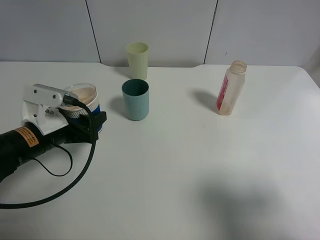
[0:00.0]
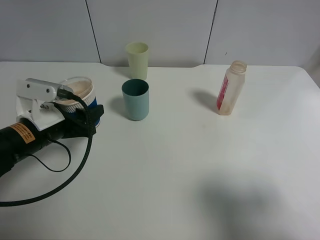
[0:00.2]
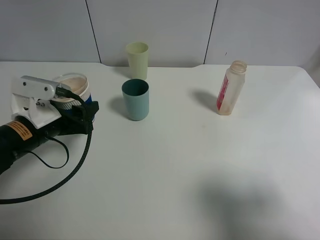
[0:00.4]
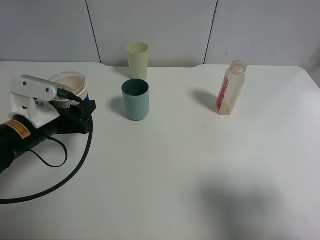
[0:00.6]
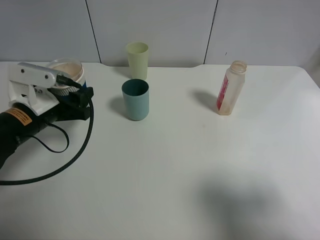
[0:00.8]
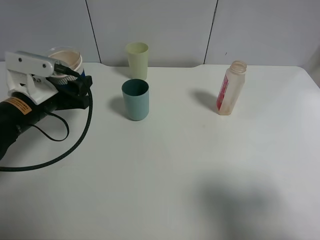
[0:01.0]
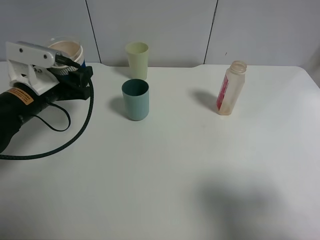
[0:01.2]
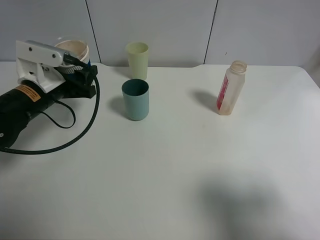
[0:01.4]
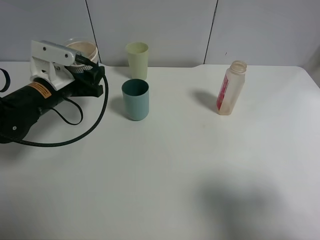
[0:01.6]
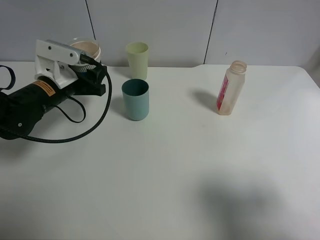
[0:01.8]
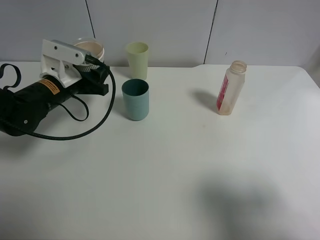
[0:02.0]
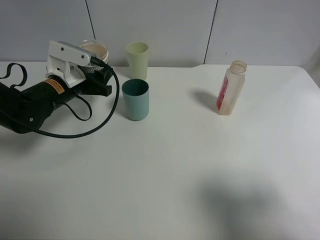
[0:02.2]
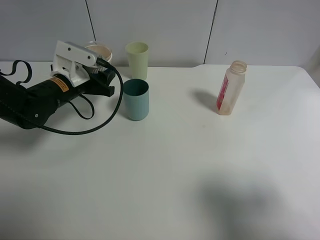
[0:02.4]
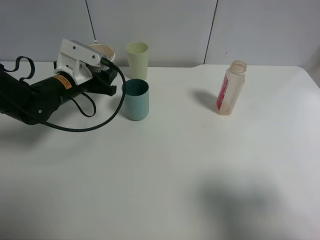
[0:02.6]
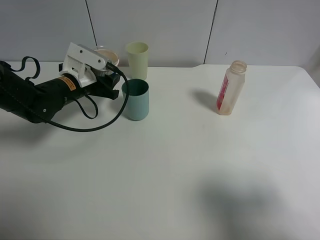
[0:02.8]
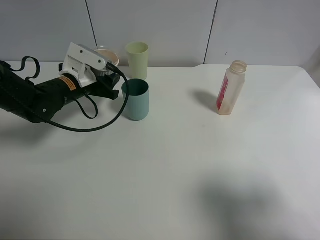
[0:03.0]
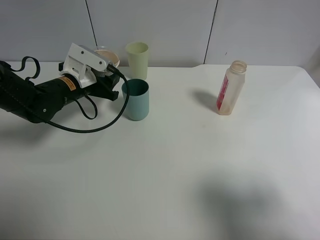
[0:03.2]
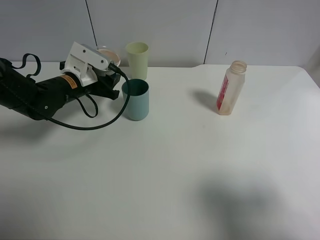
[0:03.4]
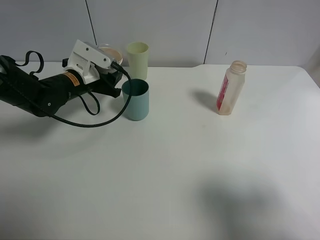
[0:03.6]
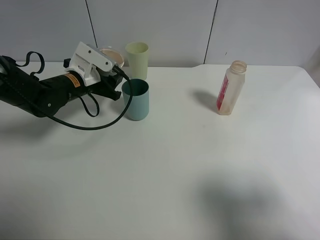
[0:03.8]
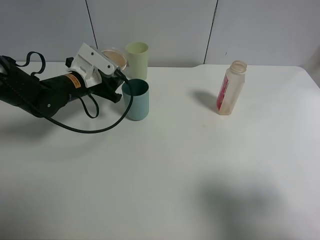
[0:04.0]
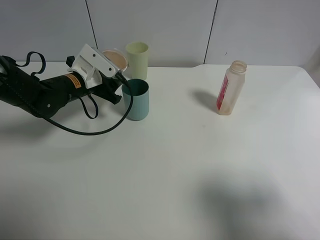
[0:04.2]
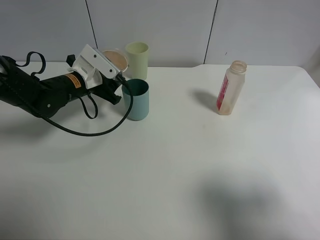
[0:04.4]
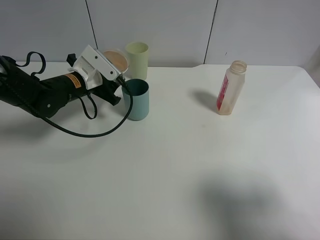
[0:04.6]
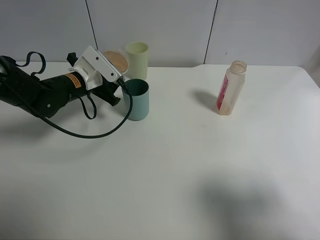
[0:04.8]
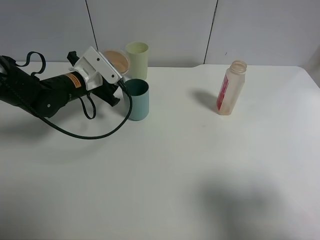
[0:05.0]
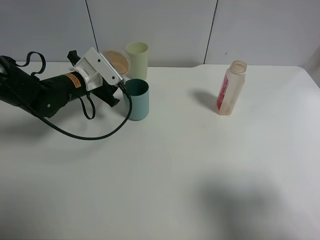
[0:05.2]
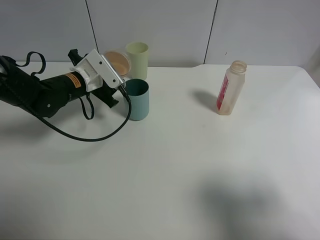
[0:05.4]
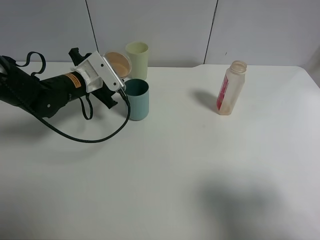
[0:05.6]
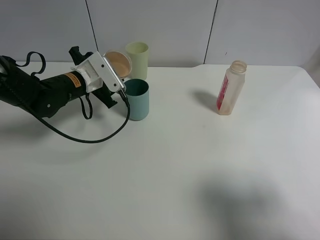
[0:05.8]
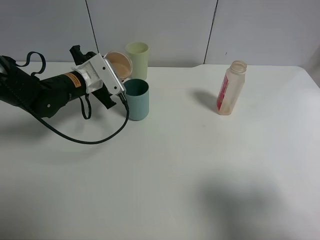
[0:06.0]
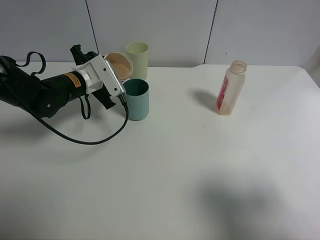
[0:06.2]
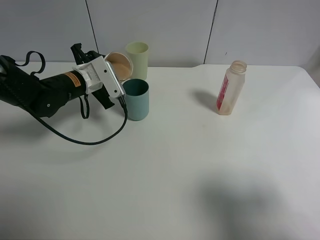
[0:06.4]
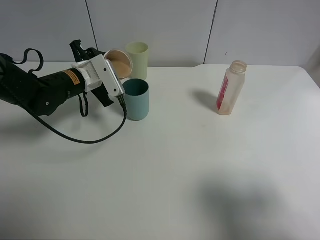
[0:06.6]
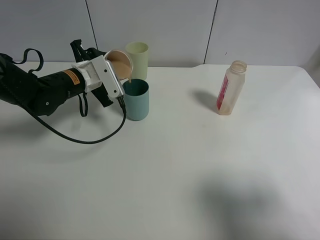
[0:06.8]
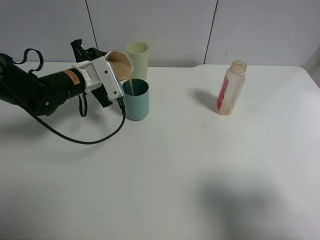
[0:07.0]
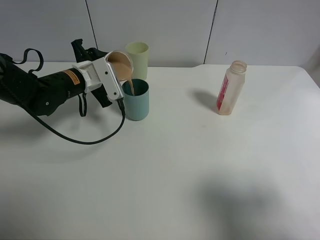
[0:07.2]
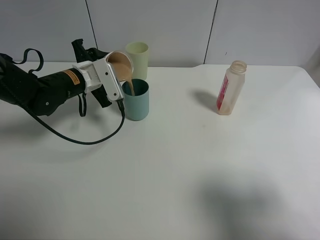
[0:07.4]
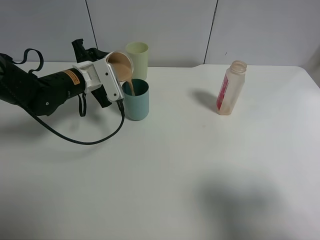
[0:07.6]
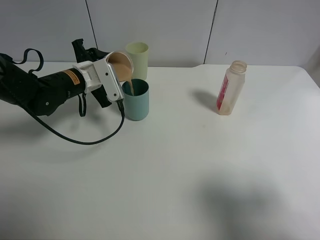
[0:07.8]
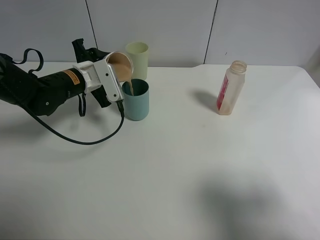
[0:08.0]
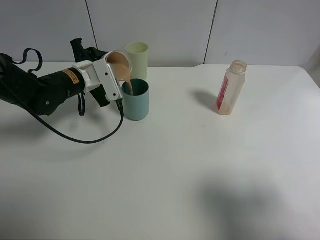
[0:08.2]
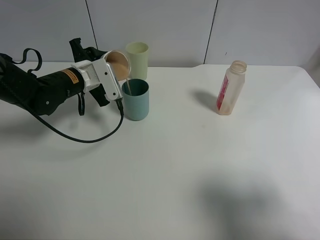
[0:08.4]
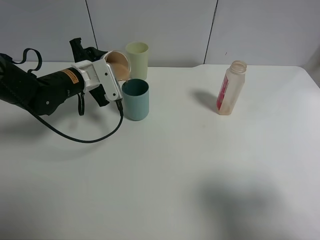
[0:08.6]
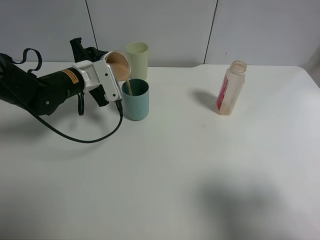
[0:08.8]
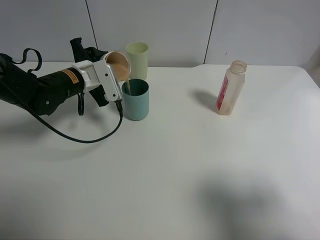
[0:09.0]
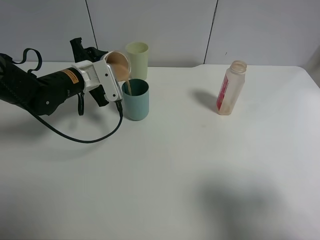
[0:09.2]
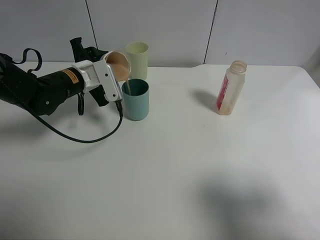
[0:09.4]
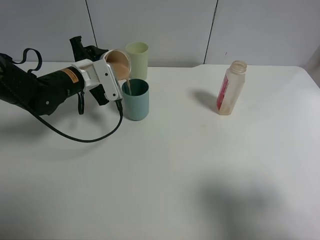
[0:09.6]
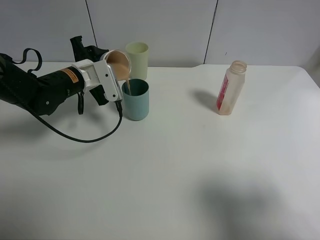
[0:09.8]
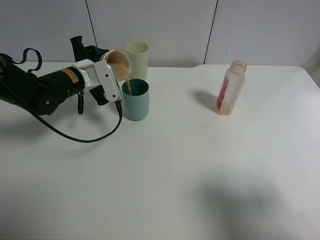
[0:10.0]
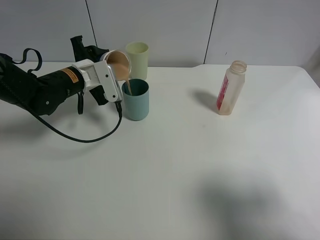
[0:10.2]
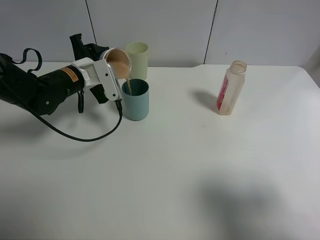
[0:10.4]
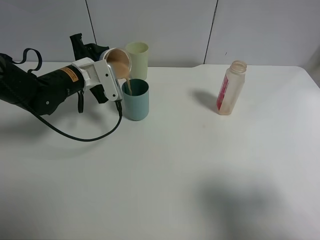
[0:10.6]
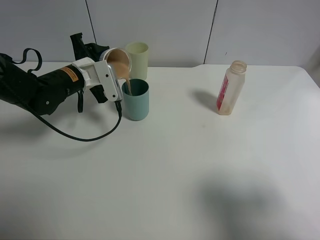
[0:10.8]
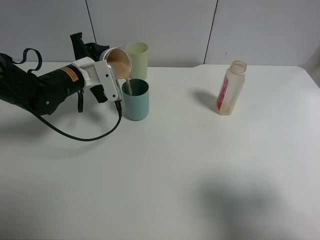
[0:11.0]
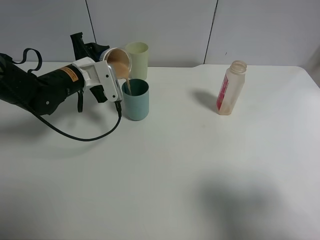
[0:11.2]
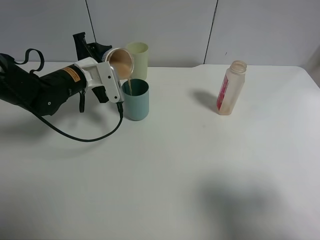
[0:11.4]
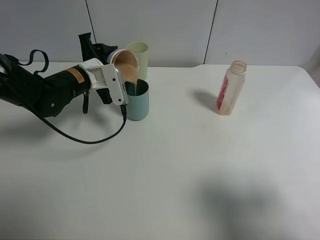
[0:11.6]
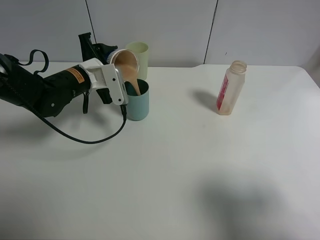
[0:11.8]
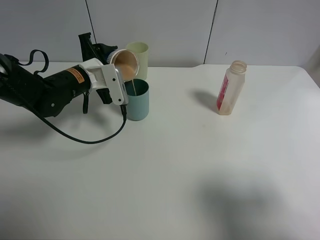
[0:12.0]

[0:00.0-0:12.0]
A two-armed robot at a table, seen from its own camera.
Task of the whole recording: use a clamp to hold the bottle of the drink, pour the beverage into a random cup, then clamp the cup containing the drink and pour the drink into another random cup.
0:00.0 to 0:01.6: The left gripper travels forward by approximately 5 cm.
0:01.6 to 0:03.0: The left gripper is displaced forward by approximately 5 cm.
0:03.0 to 0:04.4: The grippers stay close to where they were, moving slightly.
0:06.0 to 0:07.6: The grippers stay close to where they were, moving slightly.
0:07.6 to 0:09.0: Both grippers stay put.
0:09.0 to 0:10.4: Both grippers stay about where they are.
0:10.4 to 0:12.0: The grippers stay close to where they were, moving slightly.

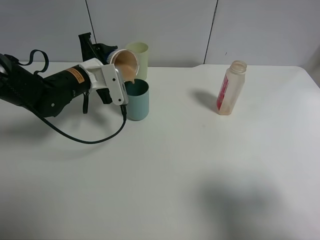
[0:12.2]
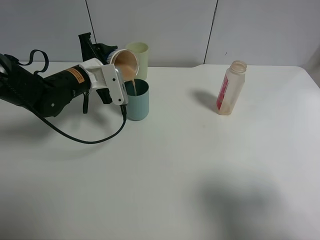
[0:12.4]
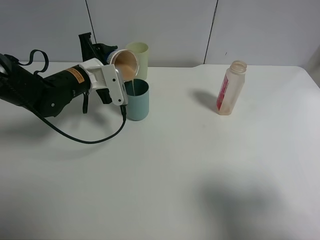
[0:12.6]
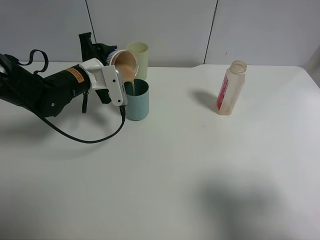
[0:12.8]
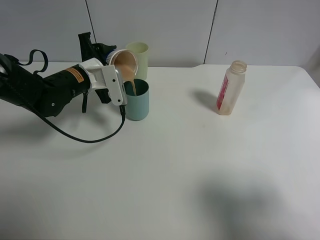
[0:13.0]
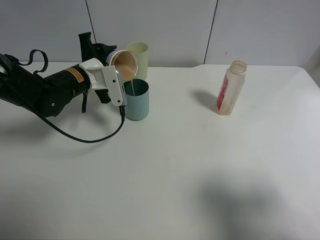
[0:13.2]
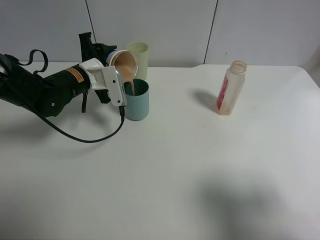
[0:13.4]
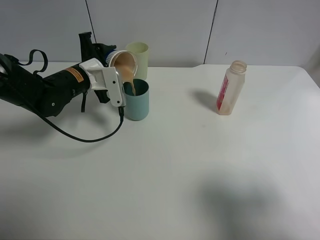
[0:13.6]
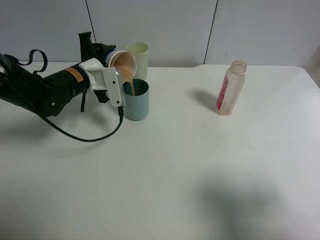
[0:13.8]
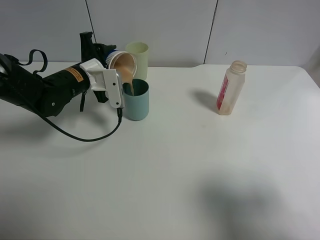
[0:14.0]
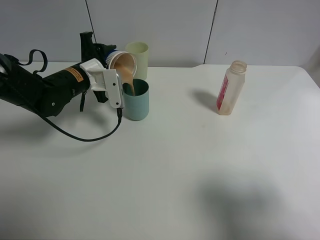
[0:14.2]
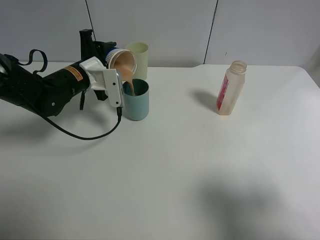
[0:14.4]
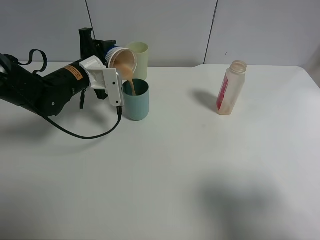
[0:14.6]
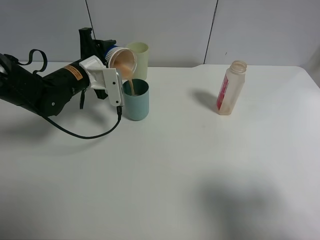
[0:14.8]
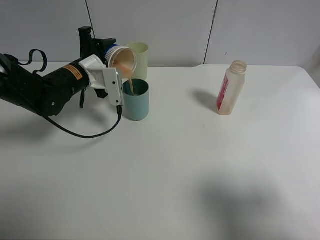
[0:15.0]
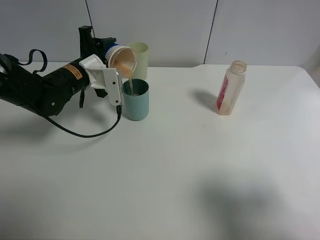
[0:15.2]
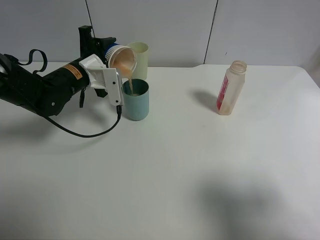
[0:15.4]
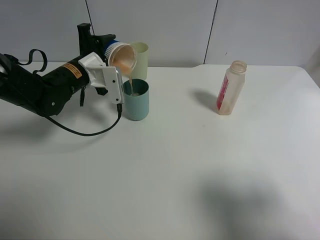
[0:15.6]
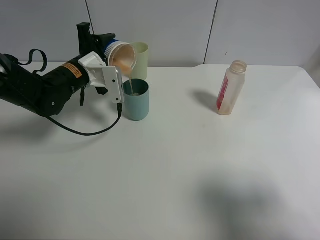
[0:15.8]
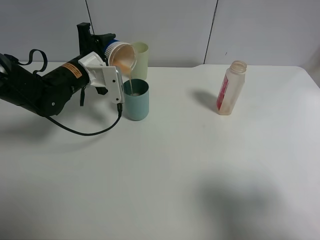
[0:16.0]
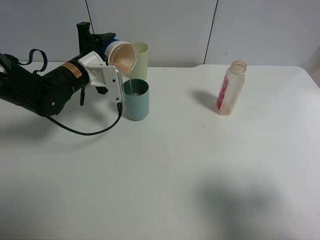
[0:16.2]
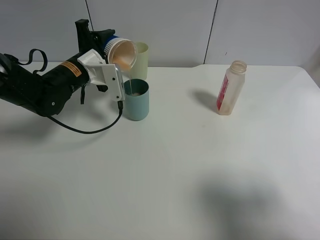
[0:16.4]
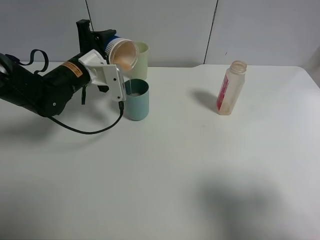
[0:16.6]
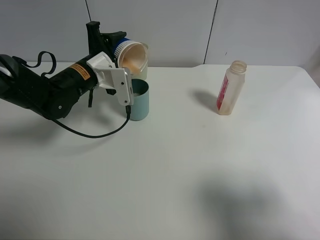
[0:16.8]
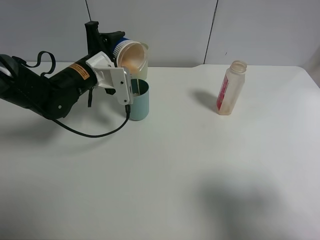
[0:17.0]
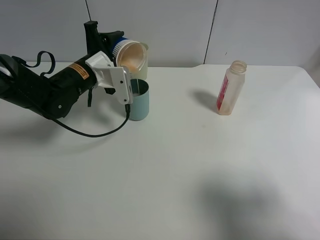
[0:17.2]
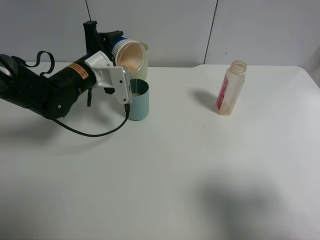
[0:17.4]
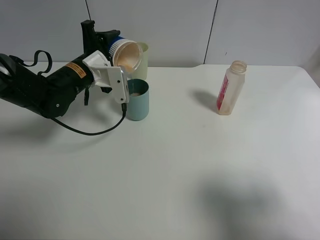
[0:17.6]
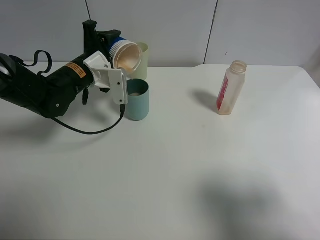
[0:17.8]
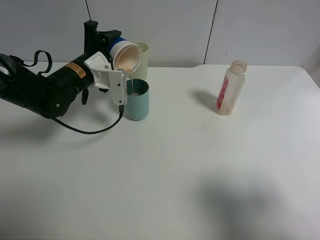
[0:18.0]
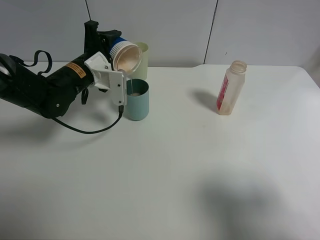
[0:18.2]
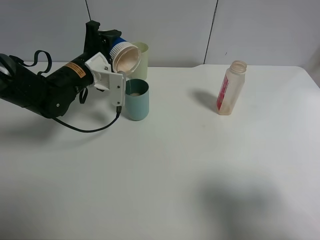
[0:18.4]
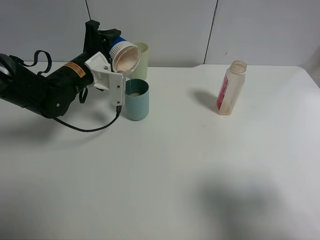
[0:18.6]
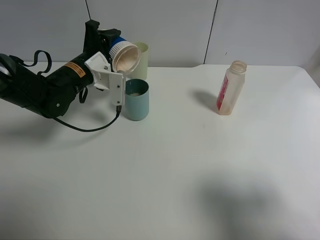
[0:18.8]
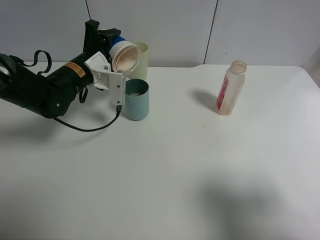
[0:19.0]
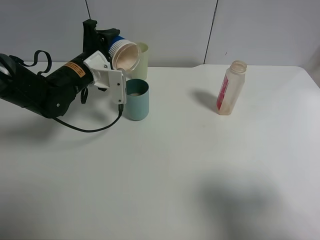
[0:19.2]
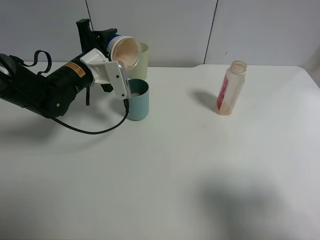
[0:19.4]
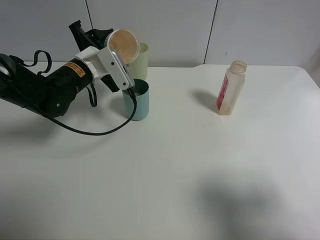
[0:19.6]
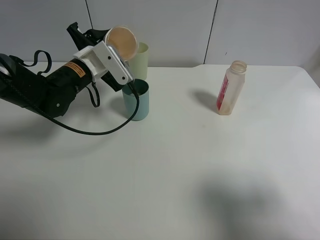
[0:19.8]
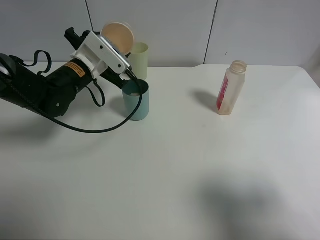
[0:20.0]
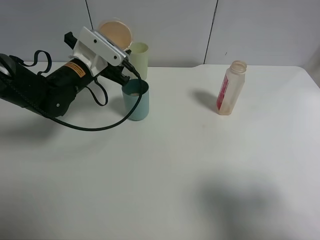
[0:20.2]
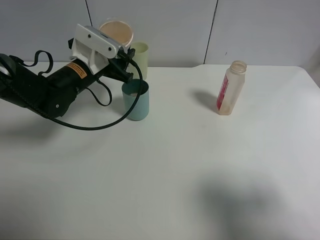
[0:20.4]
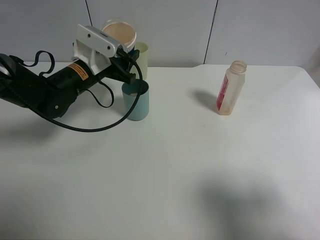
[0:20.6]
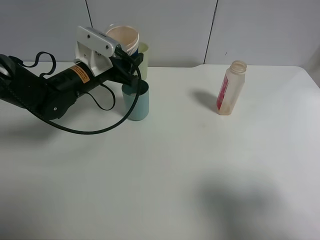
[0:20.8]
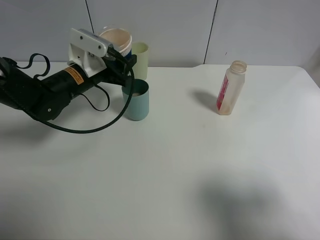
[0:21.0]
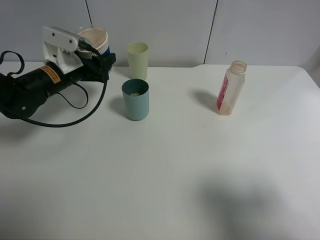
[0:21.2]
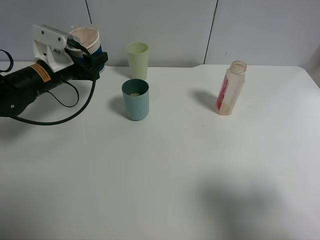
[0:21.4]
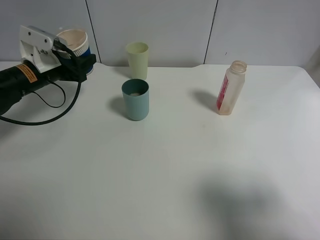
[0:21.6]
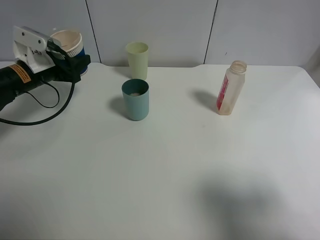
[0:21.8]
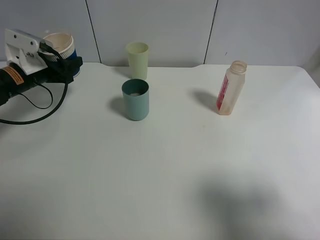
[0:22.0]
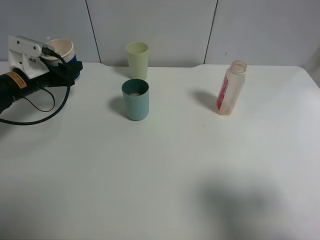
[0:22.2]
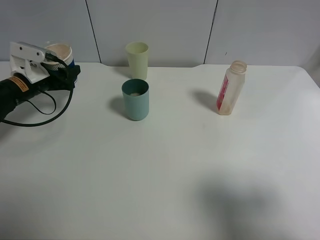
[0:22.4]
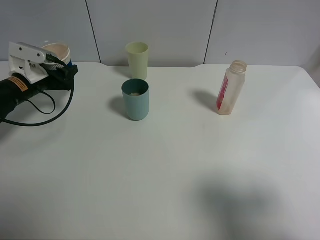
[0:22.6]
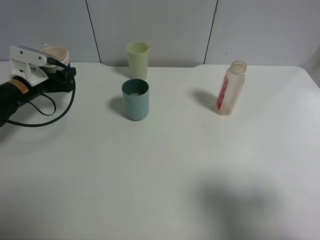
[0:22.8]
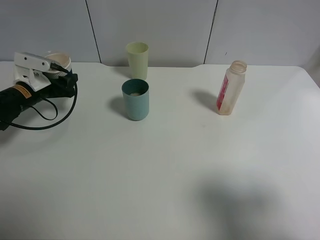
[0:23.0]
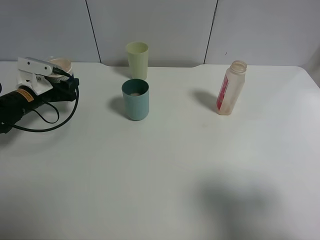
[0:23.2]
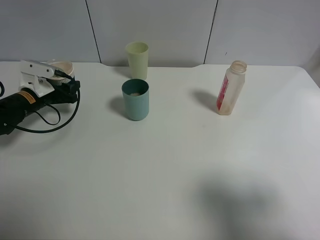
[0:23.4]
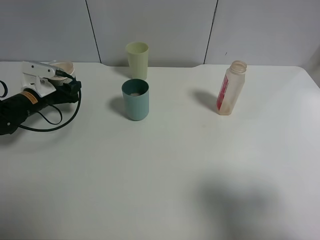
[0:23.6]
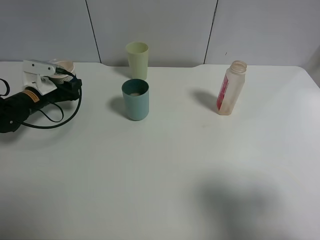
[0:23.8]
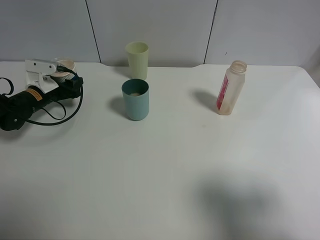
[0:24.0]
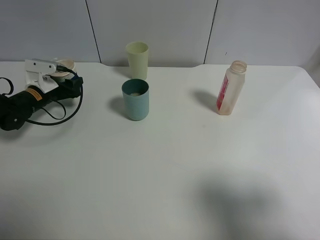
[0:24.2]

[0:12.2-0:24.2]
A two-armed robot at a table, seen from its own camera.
Task of the whole recording: use a clamp to hold the bottle of the drink, pour the beverage into a random cup, then clamp the cup containing the drink and pour the drink into another random cup.
Step, 0:12.2 to 0:19.8: Pour the drink into the green plastic cup with left gripper.
0:12.2 to 0:16.6: The grippers move only a little.
0:16.6 to 0:18.2: The grippers stay close to where they were, moving slightly.
0:21.2 to 0:22.6: The left gripper shifts some 10 cm to the left.
0:22.6 to 0:24.2: The left gripper travels downward by roughly 5 cm.
